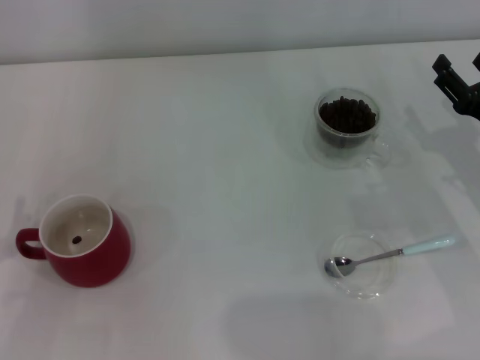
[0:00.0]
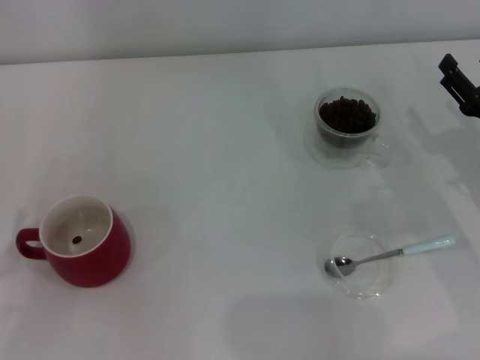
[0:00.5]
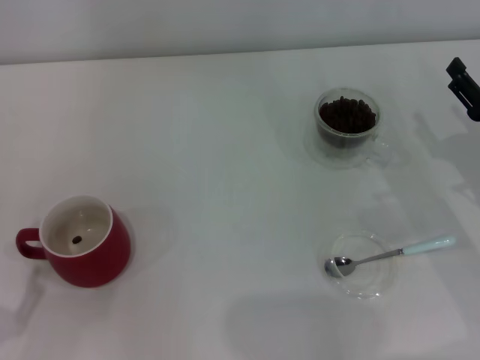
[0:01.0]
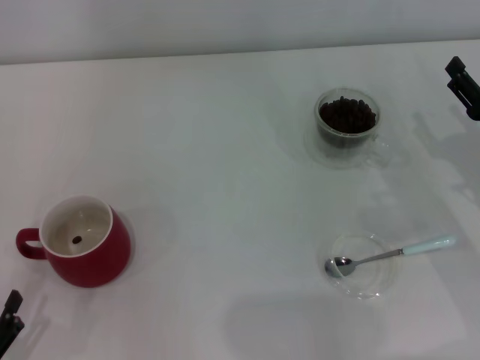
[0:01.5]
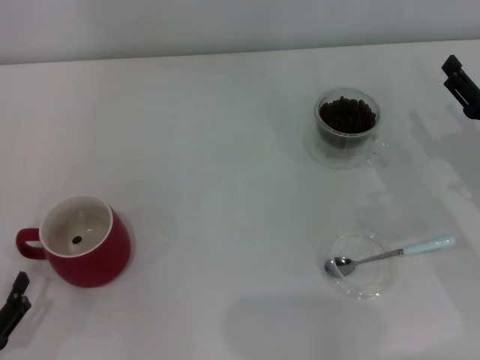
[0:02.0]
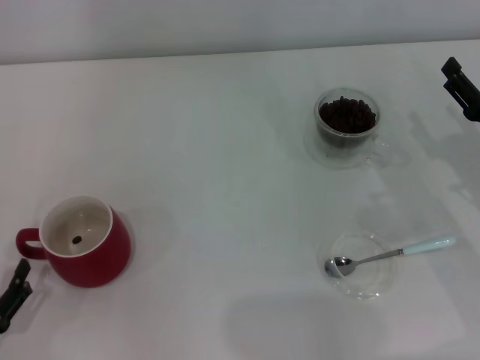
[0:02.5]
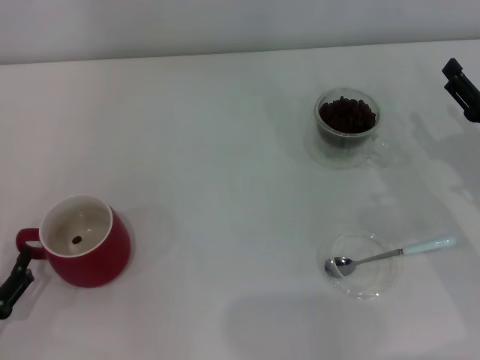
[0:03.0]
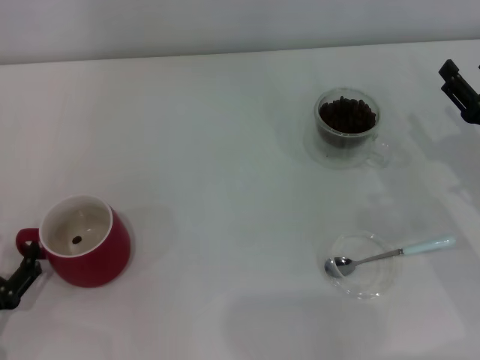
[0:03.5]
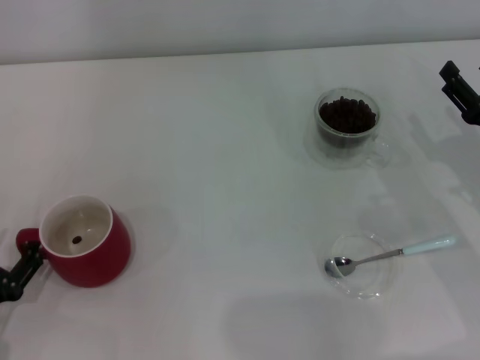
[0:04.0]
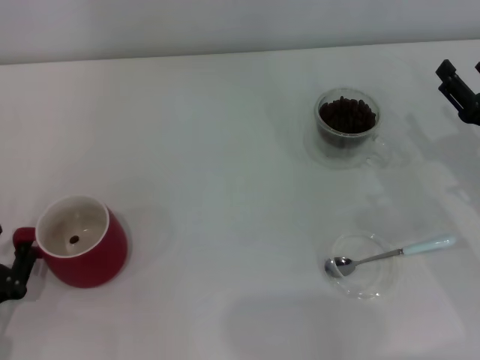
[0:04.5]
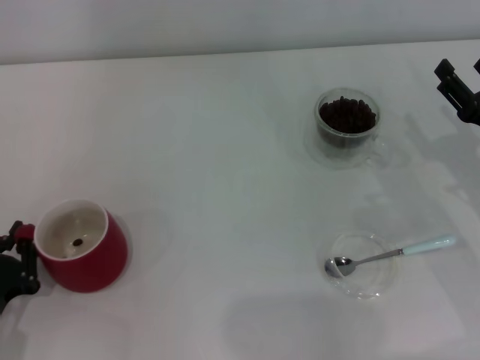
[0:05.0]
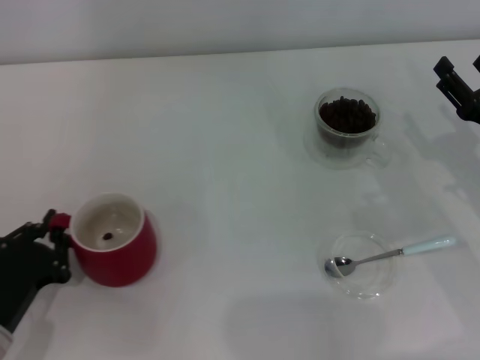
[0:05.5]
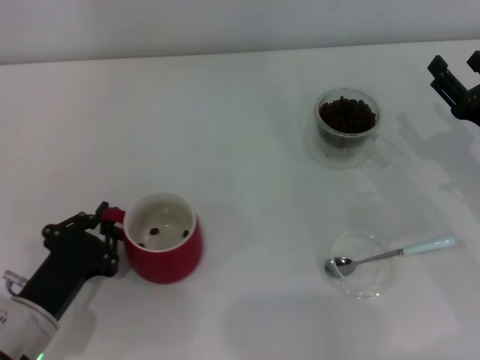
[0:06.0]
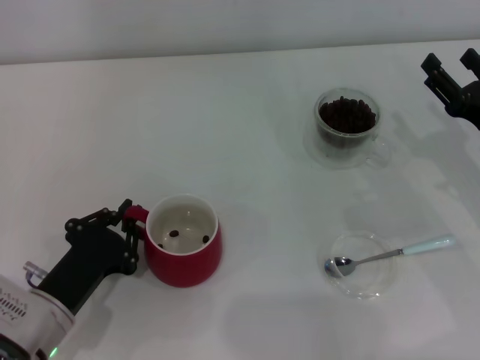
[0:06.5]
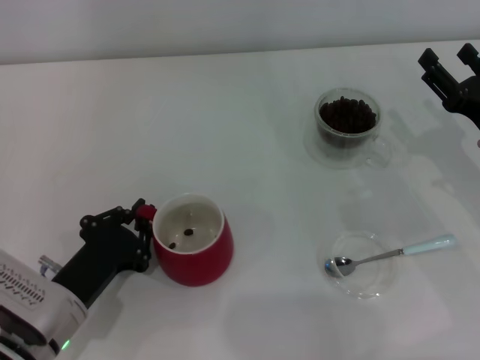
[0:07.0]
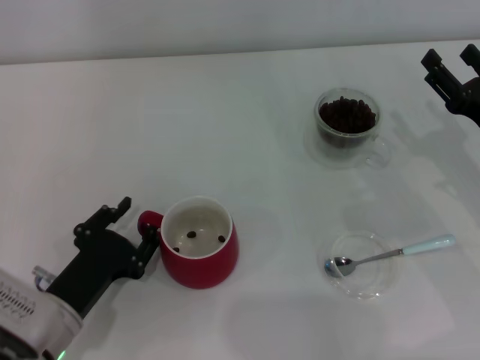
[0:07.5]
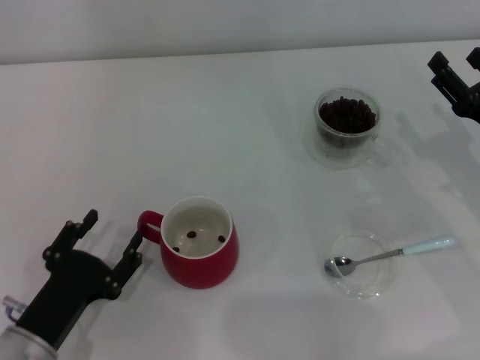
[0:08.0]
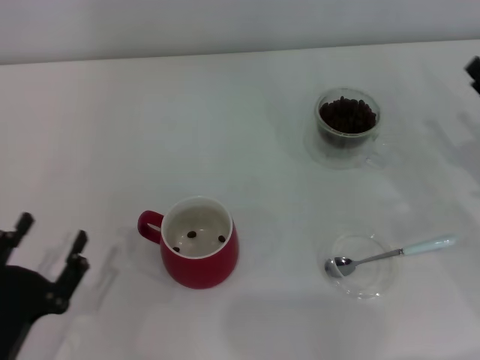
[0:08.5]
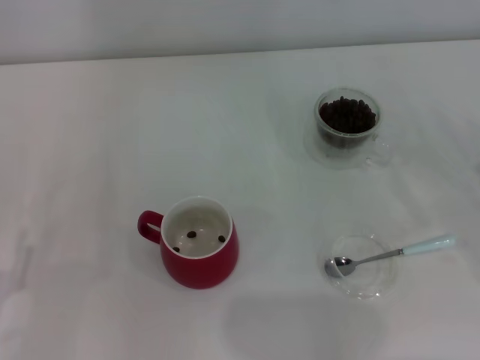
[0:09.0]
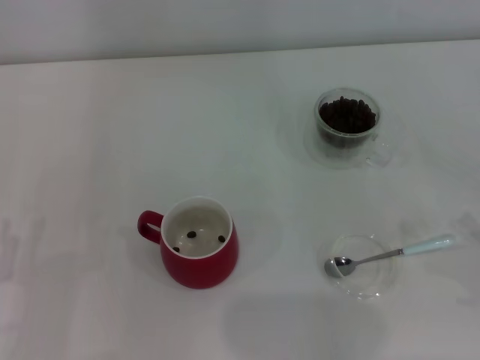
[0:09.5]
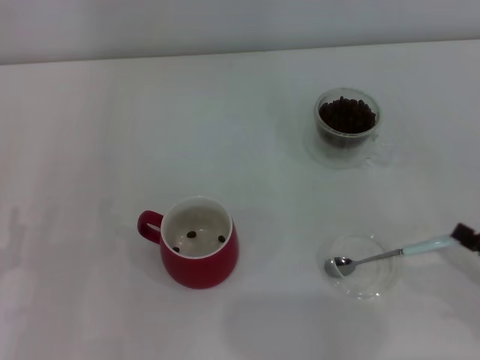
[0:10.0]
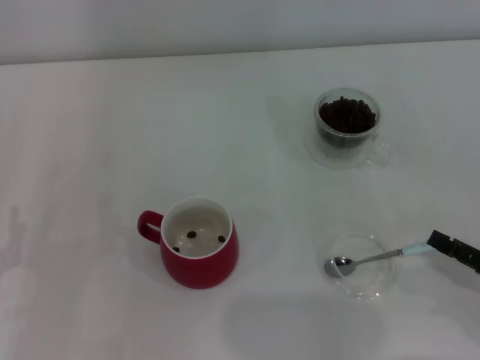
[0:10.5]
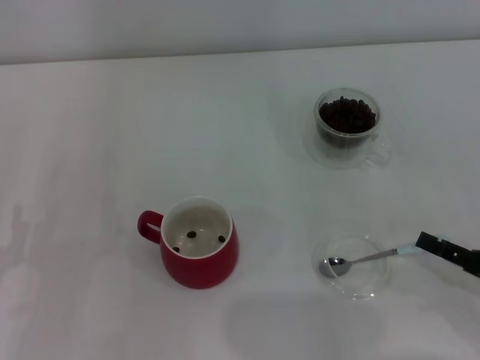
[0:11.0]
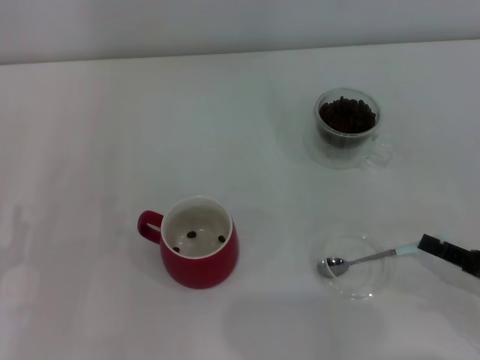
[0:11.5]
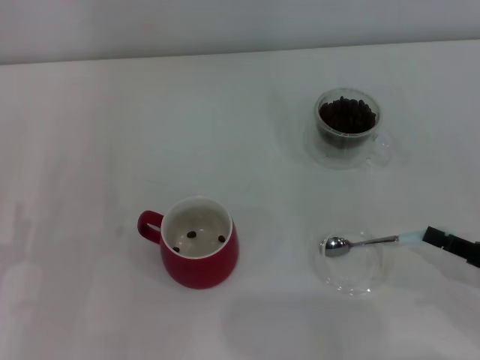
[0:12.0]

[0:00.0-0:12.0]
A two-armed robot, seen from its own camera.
Task of the whole recording: Use a blue spoon to take out the coffee beans from the glass and pour them into the red cup.
Step, 0:00.0 to 0:08.0: Move the cup to the center of view with the left gripper.
0:00.0 to 0:02.0: The left gripper goes about 5 cm backward.
0:02.0 to 0:04.0: The left gripper heads forward, covering some 5 cm.
0:04.0 to 0:06.0: The left gripper heads to the right, covering about 10 cm, and closes up.
0:06.0 to 0:08.0: The left gripper opens up.
0:08.0 to 0:10.0: The left gripper travels to the left by about 5 cm. Meanwhile the right gripper moves backward, roughly 15 cm.
0:10.0 to 0:12.0: The right gripper closes up.

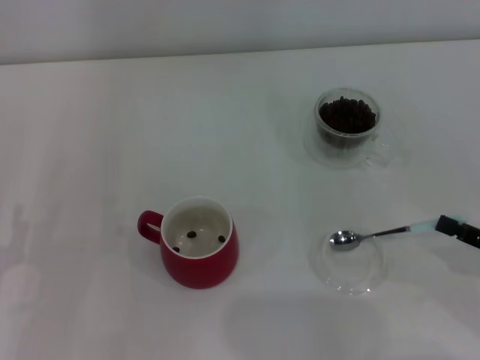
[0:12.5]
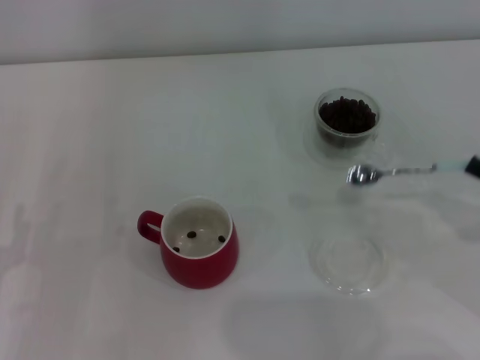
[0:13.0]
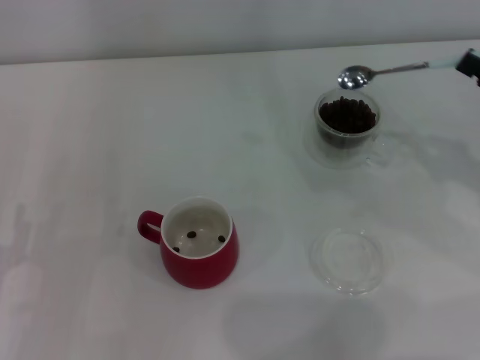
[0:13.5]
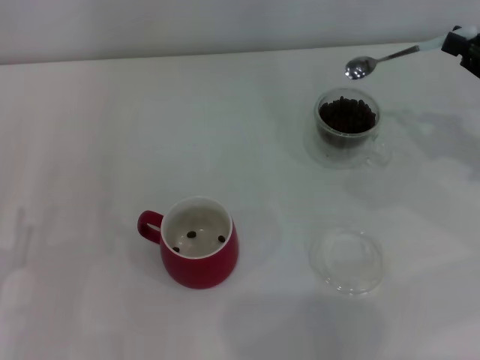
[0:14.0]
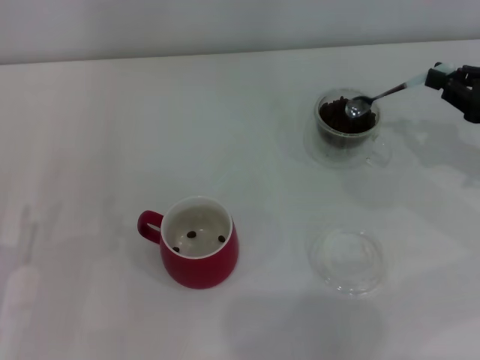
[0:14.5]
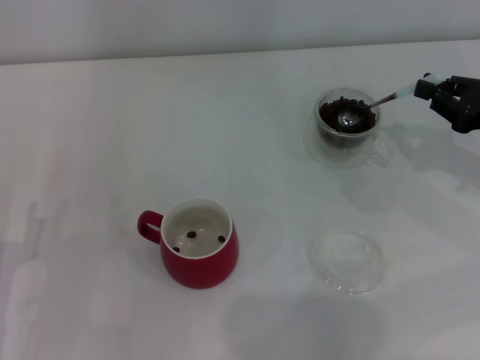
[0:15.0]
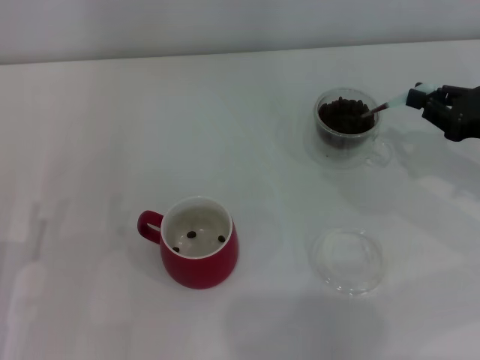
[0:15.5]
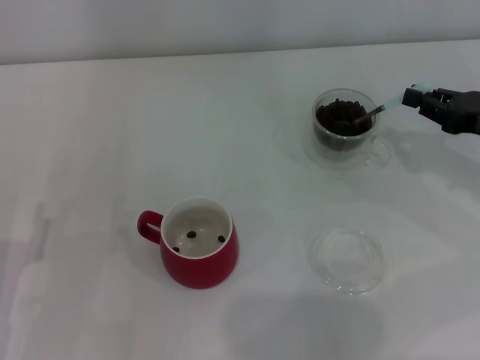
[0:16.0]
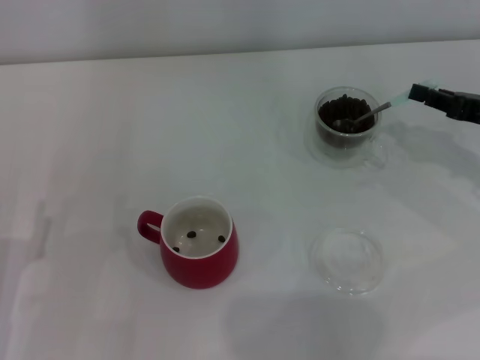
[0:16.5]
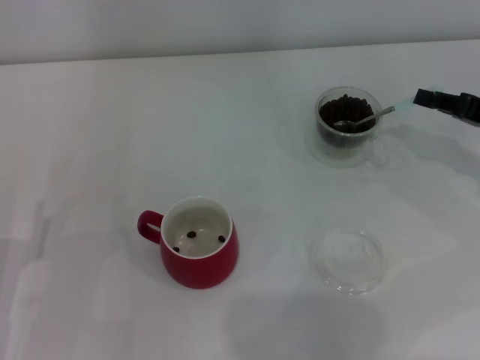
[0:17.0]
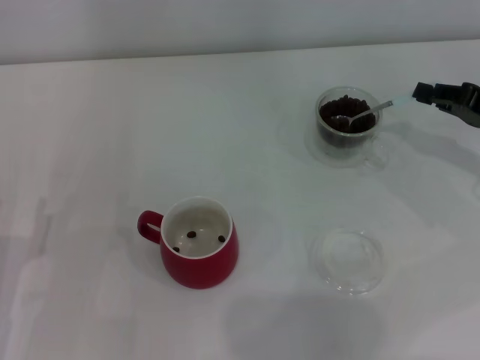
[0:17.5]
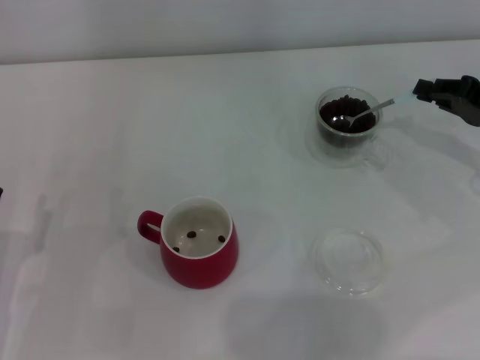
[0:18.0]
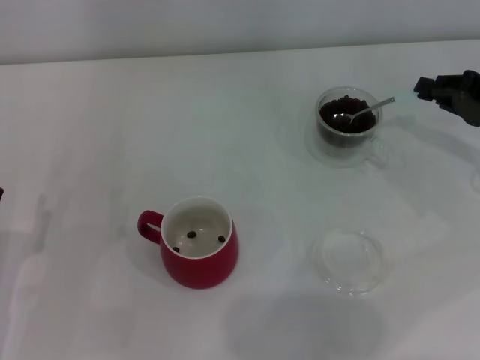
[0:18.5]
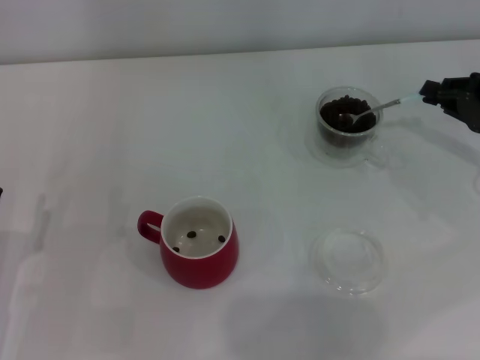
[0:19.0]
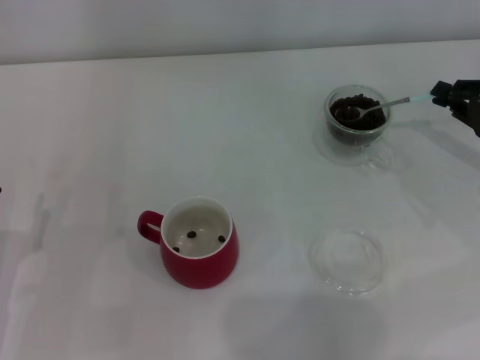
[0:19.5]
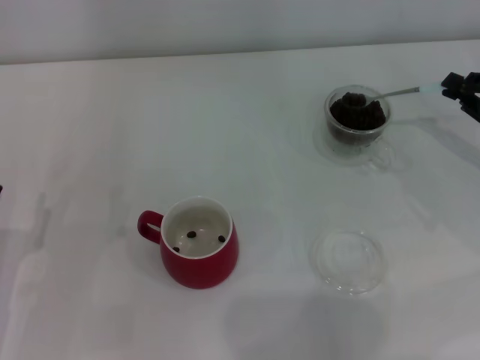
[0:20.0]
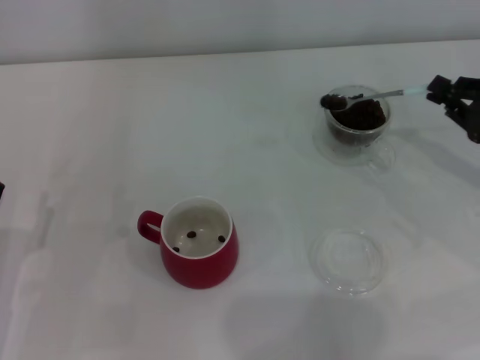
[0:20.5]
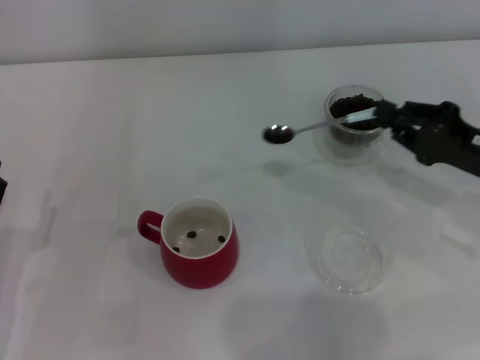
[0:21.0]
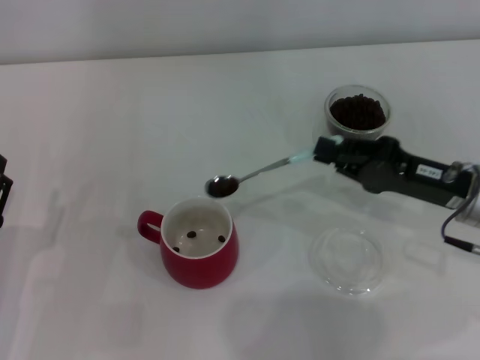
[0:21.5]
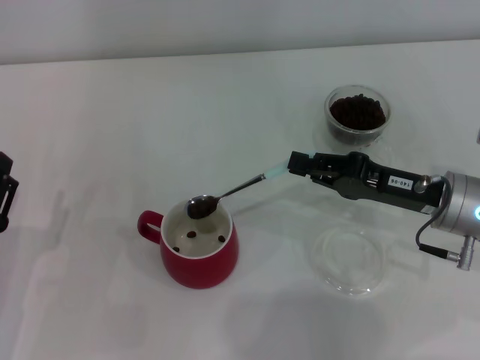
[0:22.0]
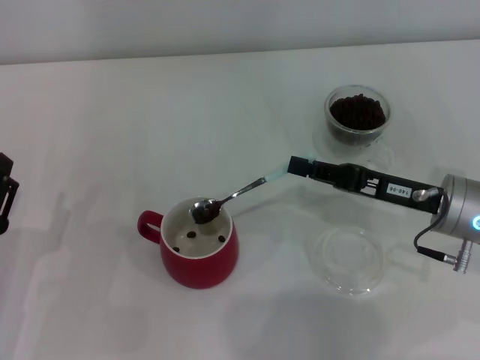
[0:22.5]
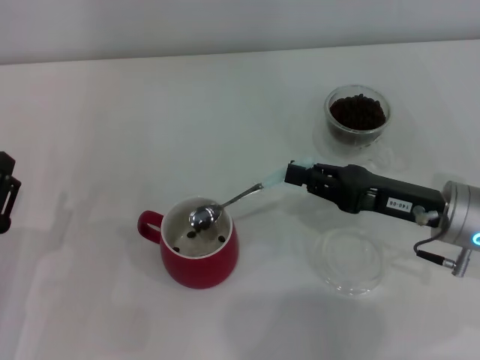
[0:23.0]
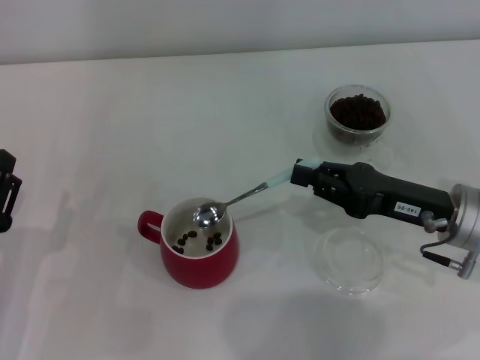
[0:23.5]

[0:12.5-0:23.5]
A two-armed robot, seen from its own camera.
Task of the whole recording: Use a blue spoon to take out the coffee beans from the glass and pour them into the red cup.
Step, 0:13.0 to 0:23.0: Scoop a spoonful of beans into the cup with the right gripper.
0:12.5 to 0:14.5: The right gripper travels forward and upward by about 15 cm.
0:14.5 to 0:16.0: The grippers move only a little.
0:18.0 to 0:20.0: The grippers move only a little.
0:20.0 to 0:21.5: The right gripper is displaced to the left by about 10 cm.

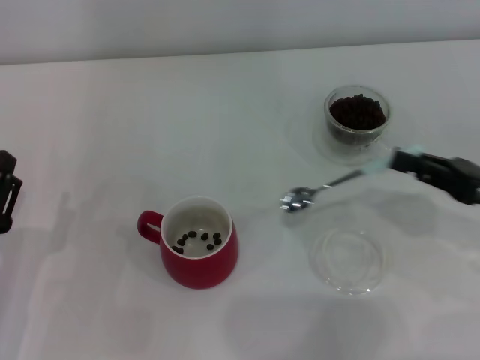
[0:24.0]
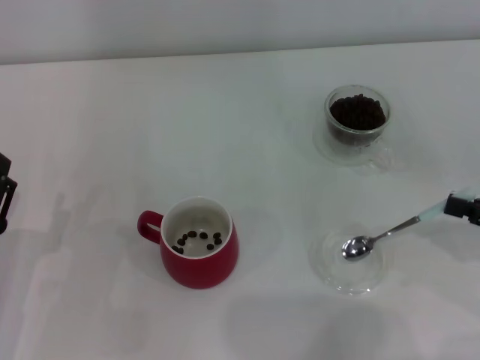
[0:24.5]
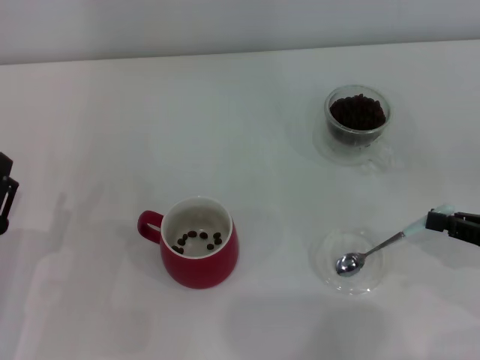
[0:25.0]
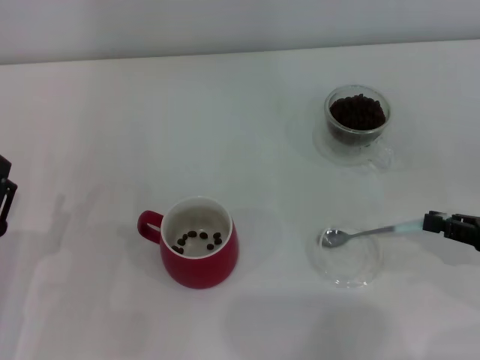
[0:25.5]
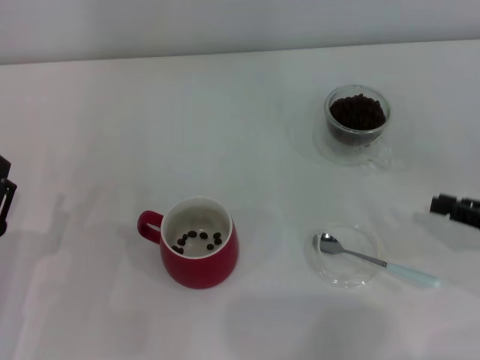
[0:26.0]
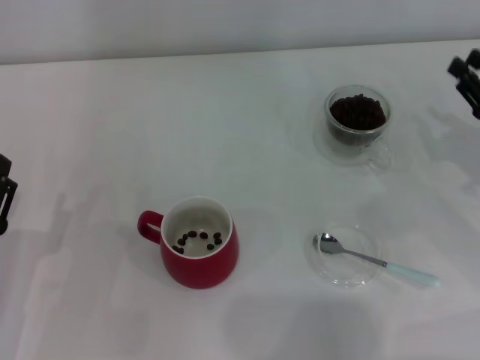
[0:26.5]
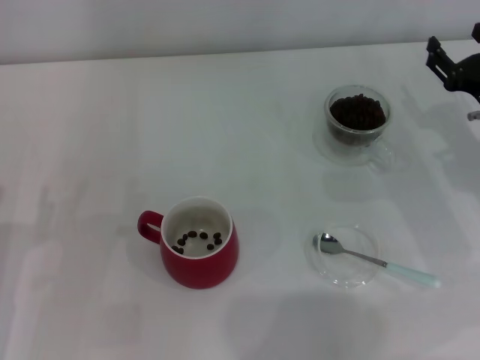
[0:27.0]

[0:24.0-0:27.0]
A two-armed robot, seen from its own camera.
Task of the whole recording: Use a blue spoon to take out the coffee beans from the glass and pour them into the red cup.
Step, 0:24.0 to 0:25.5: Place the spoon back in its original place with the right gripper.
0:25.5 to 0:27.0: The right gripper is displaced forward by roughly 10 cm.
